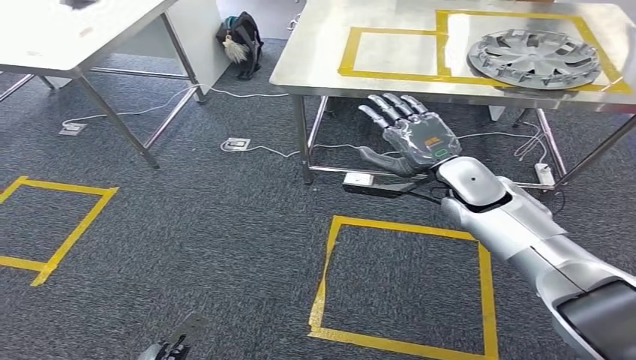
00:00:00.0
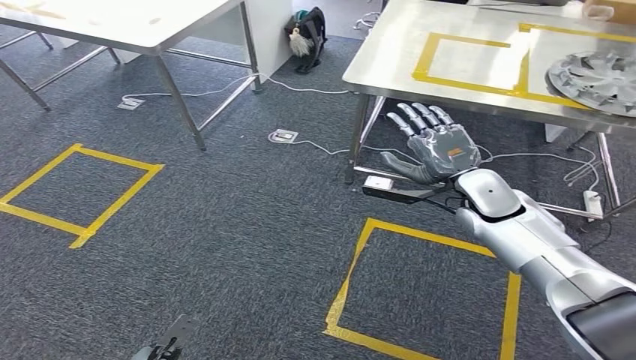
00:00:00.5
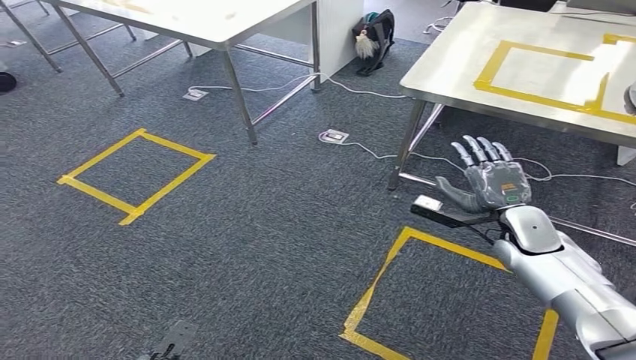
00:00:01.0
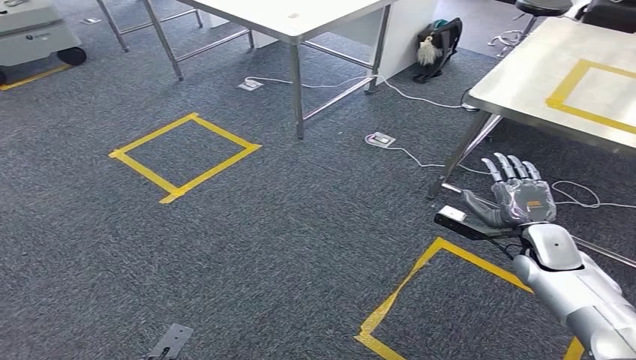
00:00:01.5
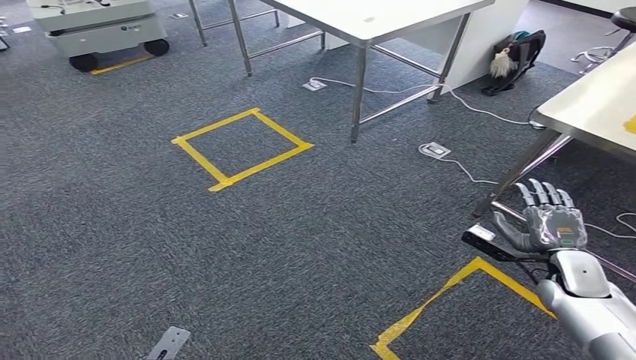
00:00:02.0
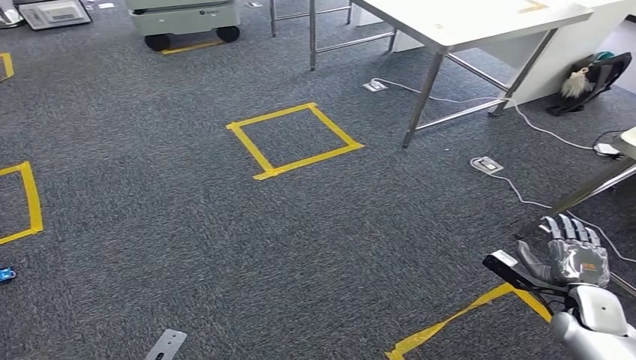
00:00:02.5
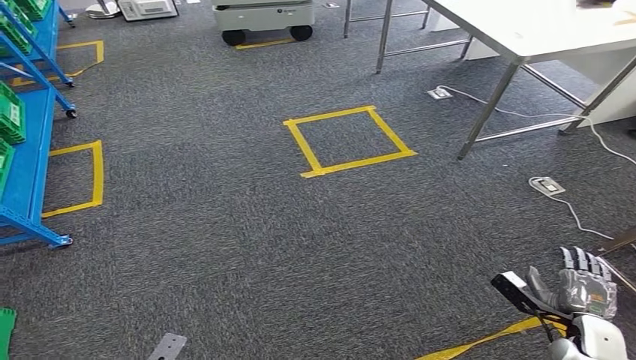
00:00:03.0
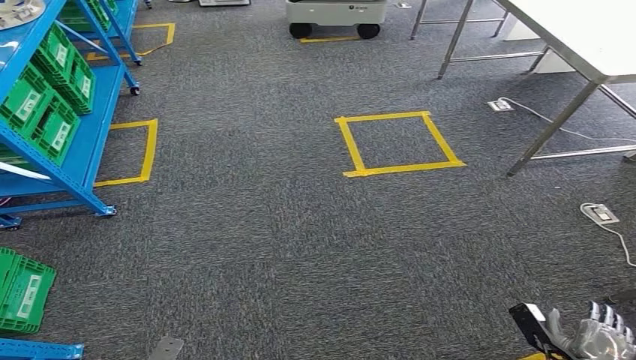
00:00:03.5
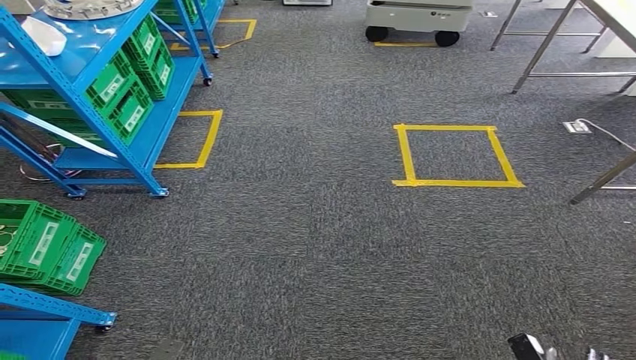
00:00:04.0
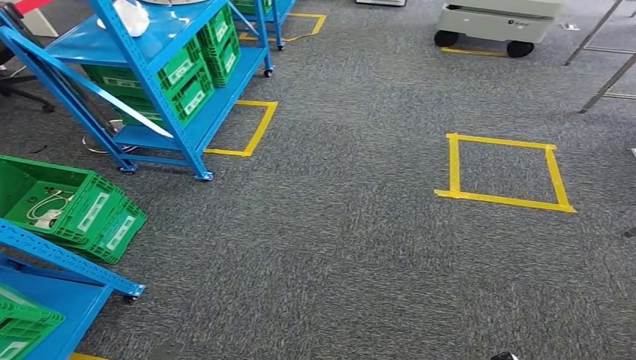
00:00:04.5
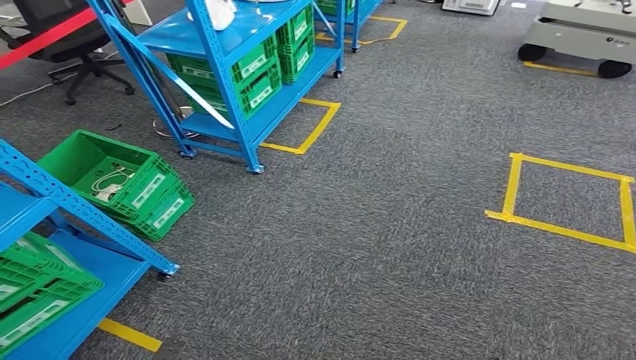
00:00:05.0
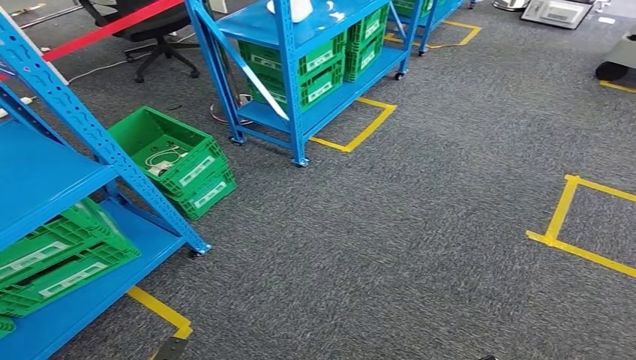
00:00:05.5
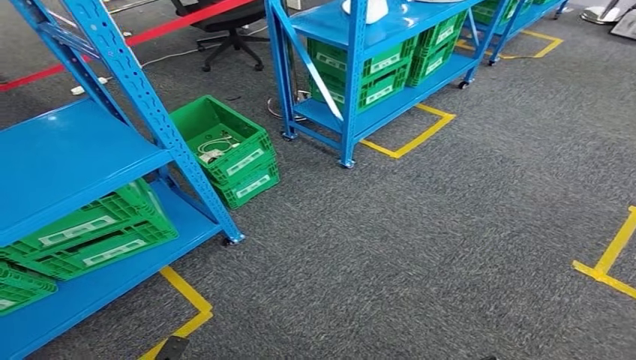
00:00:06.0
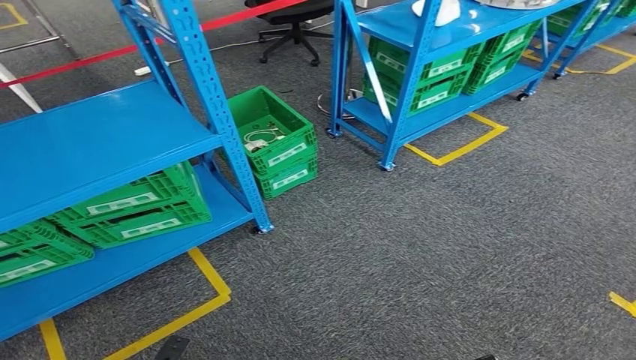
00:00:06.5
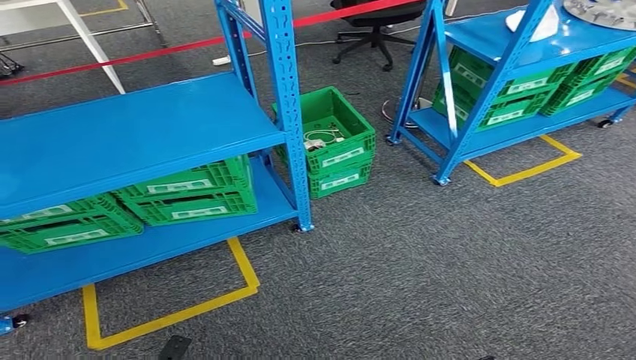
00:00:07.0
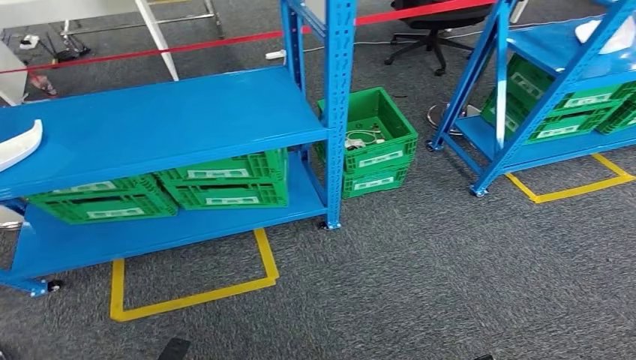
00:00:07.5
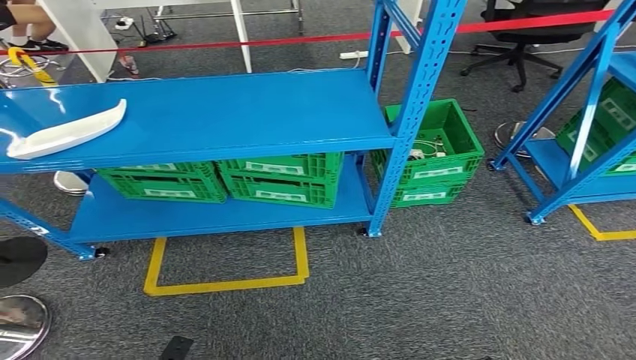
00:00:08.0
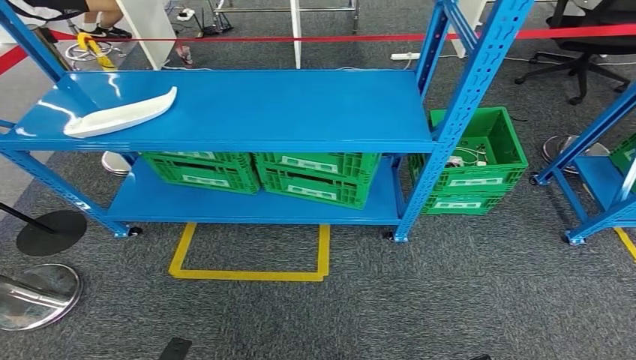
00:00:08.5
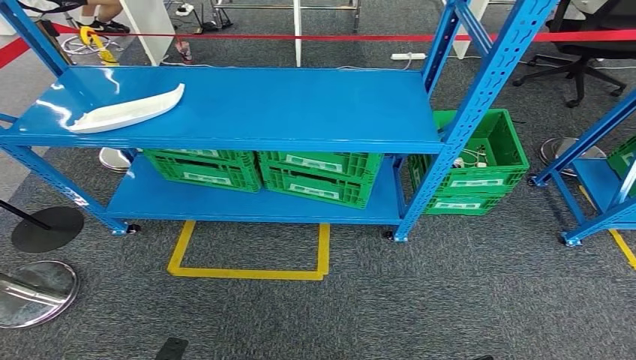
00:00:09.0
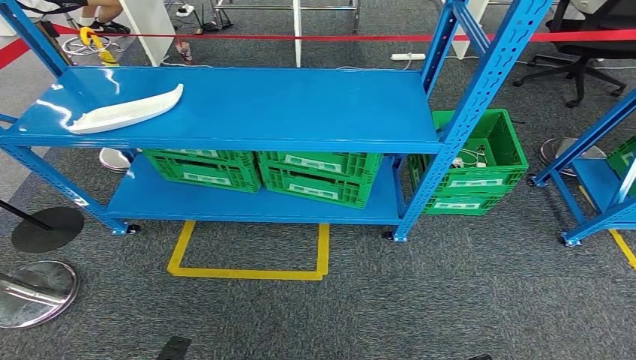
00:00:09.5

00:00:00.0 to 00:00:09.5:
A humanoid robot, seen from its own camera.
Step, 00:00:00.0 to 00:00:09.5: Return to the initial position at the workbench.
